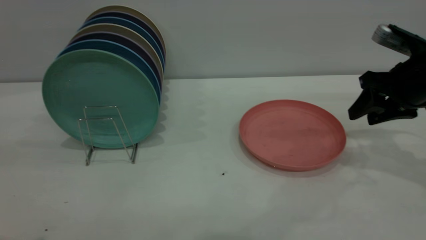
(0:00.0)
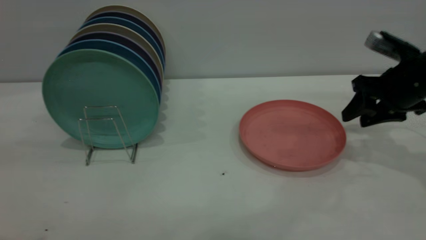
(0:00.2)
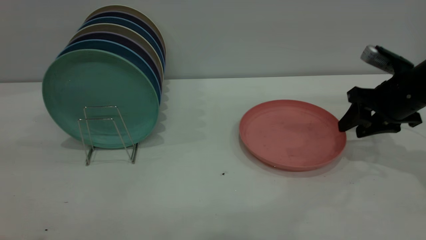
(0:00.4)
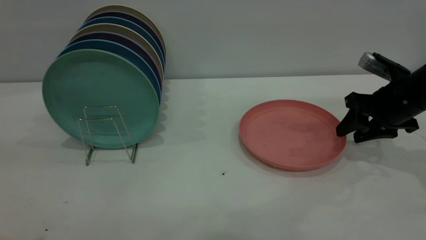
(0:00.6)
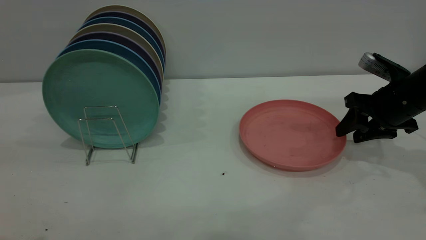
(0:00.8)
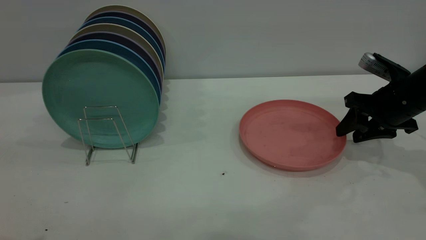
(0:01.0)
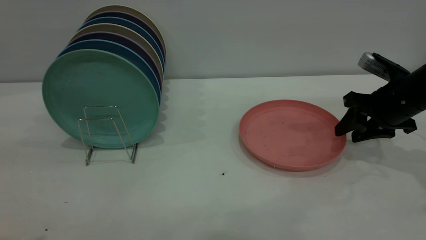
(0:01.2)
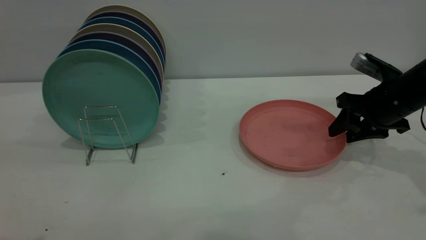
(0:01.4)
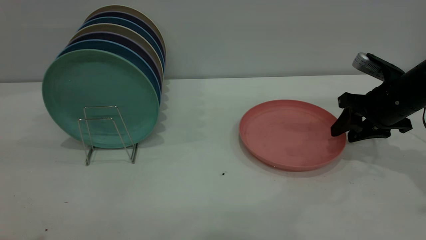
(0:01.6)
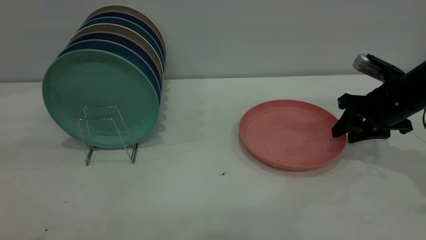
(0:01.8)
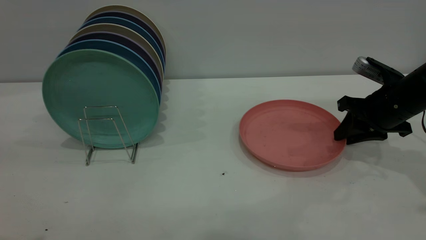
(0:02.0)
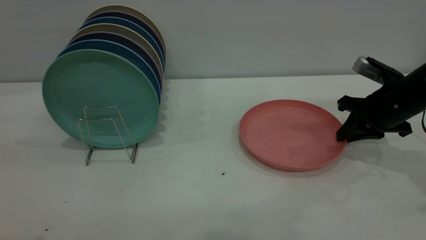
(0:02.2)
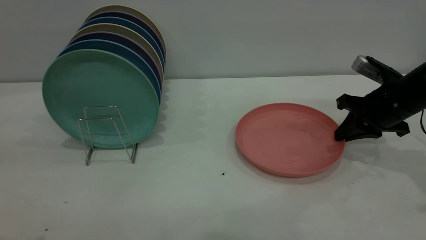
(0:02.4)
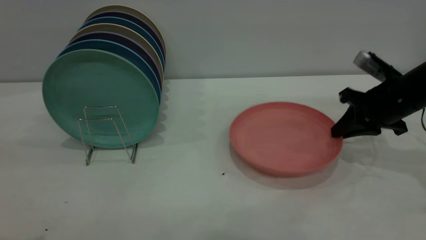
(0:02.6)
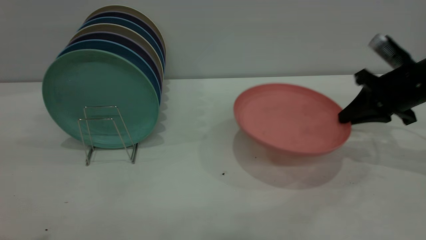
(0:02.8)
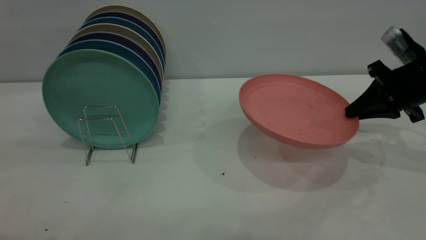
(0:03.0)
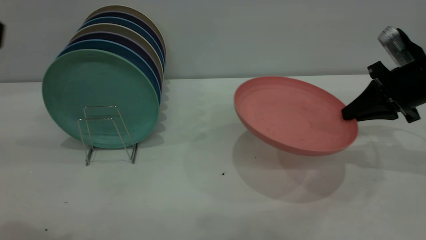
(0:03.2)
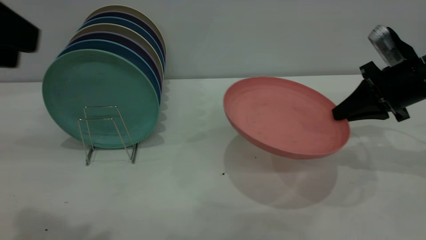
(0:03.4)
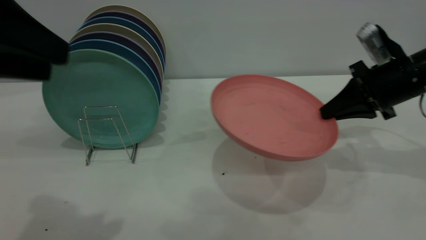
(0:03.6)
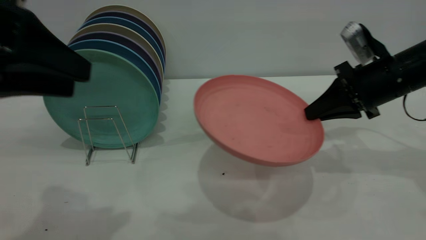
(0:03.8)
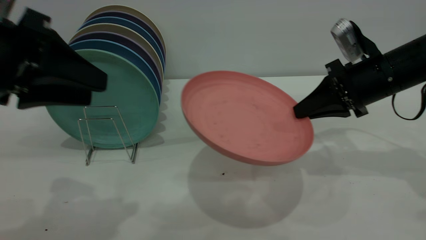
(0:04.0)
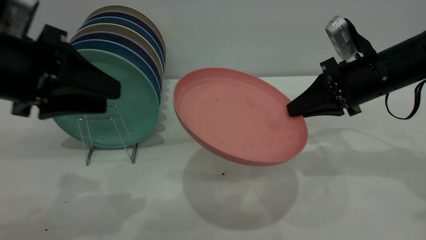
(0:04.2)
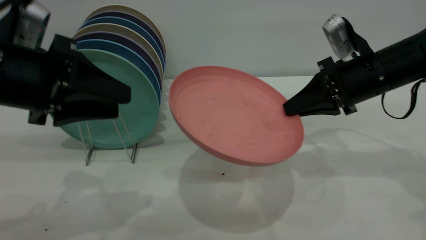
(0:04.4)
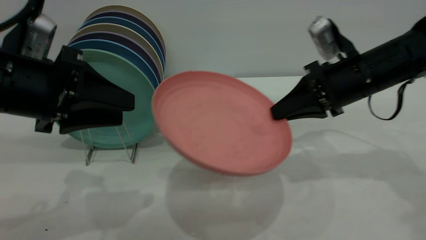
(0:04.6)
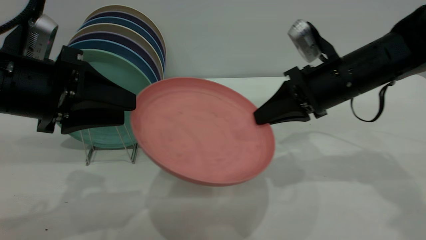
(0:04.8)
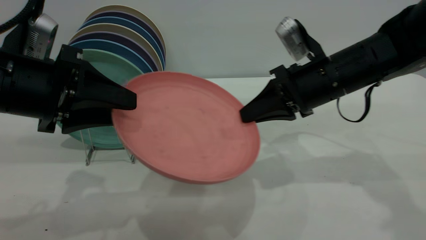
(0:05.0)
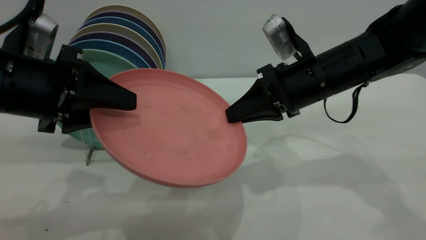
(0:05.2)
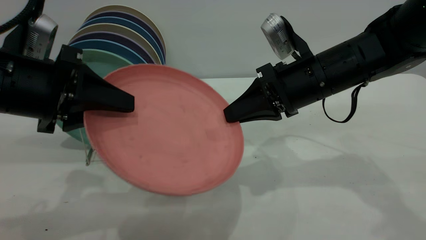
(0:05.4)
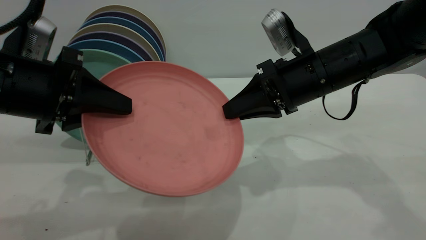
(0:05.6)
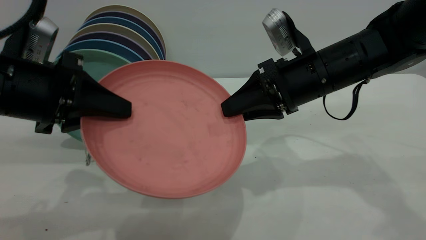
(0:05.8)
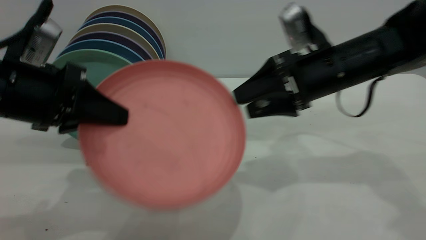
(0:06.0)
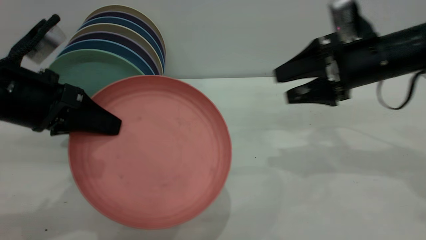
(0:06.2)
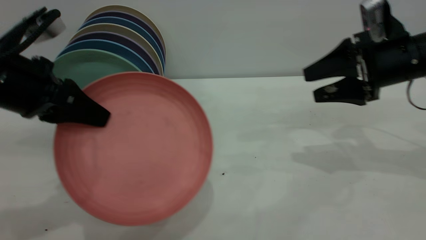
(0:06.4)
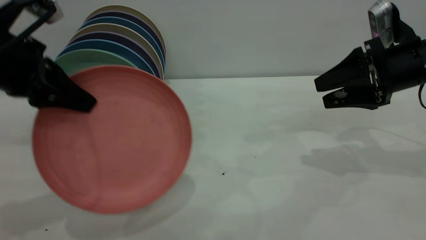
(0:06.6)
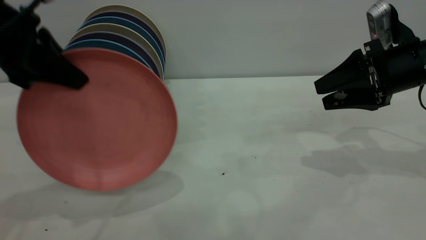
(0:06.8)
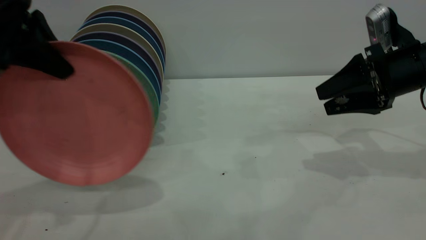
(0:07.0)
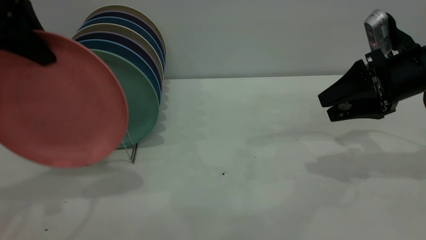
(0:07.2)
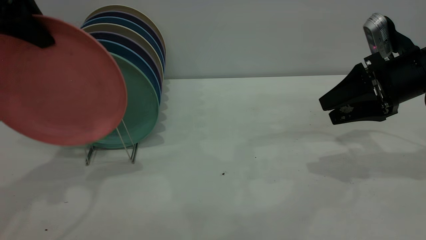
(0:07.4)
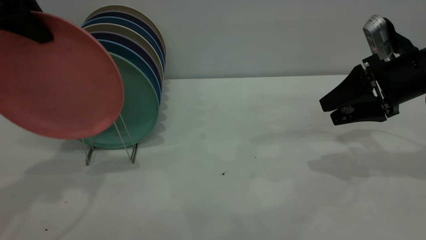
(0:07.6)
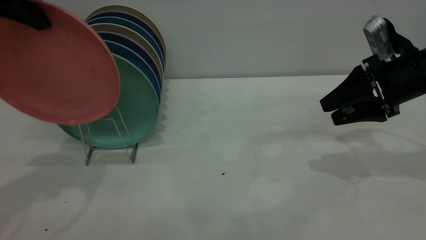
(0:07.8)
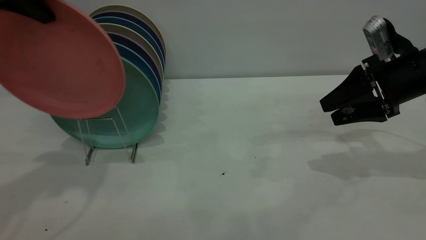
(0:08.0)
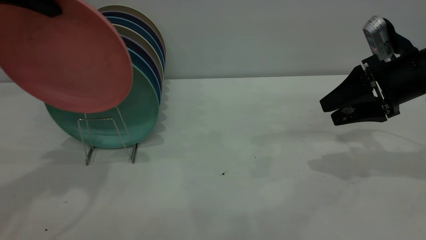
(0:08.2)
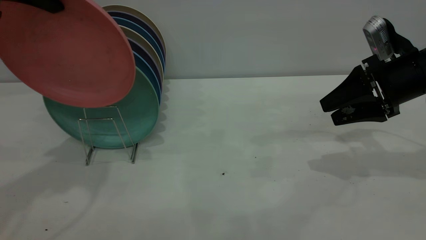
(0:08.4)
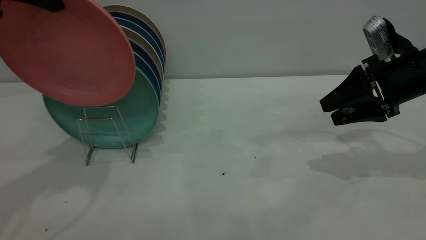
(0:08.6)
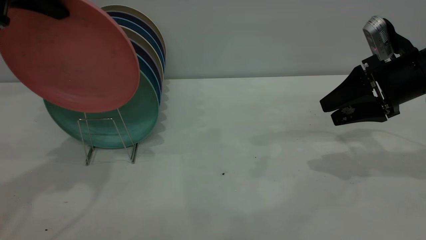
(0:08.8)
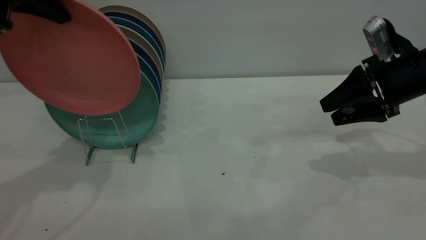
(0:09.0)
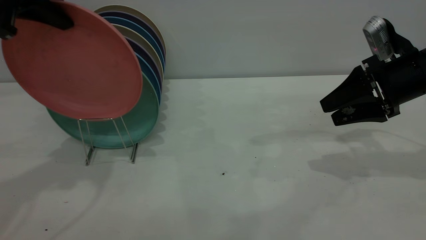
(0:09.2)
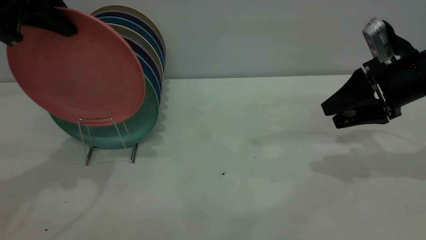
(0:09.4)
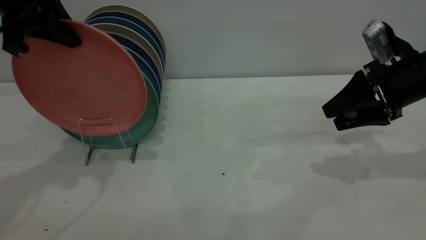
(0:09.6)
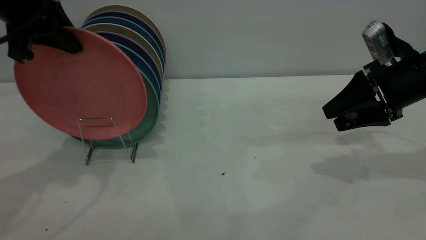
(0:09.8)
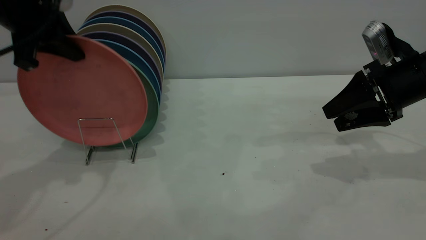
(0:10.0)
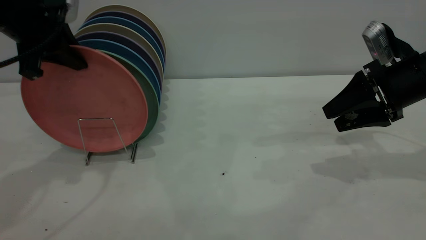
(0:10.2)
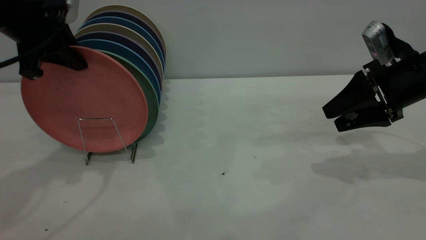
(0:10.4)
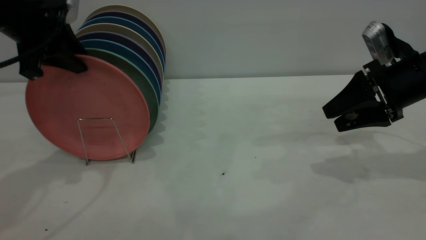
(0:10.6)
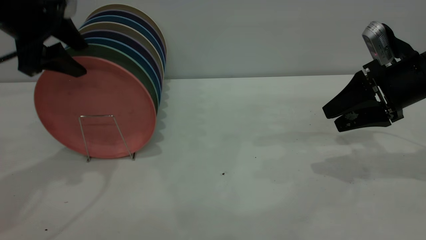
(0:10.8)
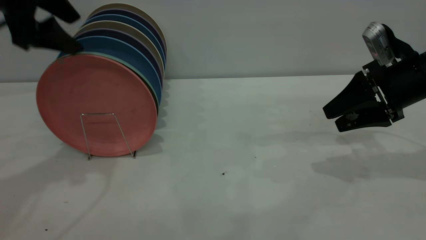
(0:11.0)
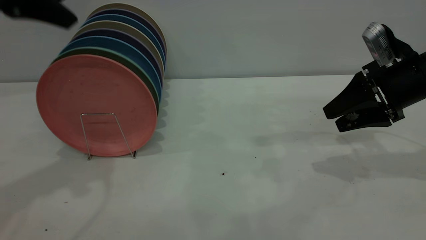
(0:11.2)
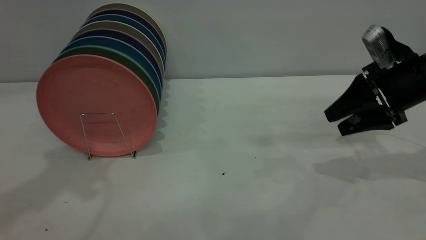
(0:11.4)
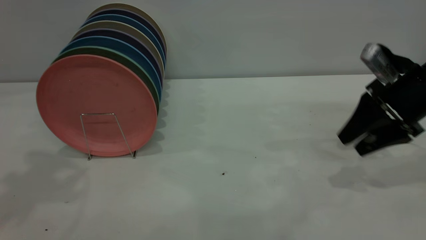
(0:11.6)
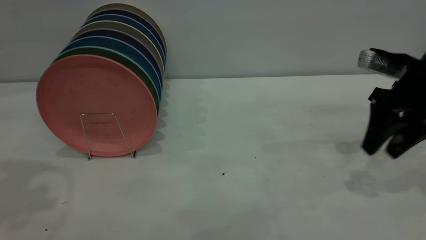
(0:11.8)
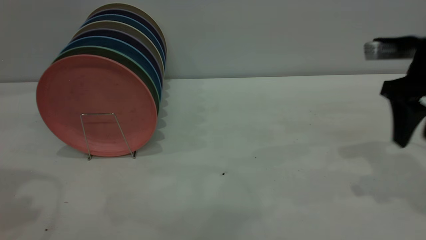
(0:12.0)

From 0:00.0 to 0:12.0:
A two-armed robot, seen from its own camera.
Task of the whole recording: the right gripper grasp the pink plate, the right gripper pass the pink plate to the left gripper, and the left gripper place the pink plate on the plate rack.
Step, from 0:00.0 to 0:03.2: Pick up the plate with the right gripper.
Step, from 0:03.4 to 0:07.8: Pass the plate from the right gripper to the left gripper.
Step, from 0:08.0 to 0:11.2: Place the plate on the shelf.
From 0:00.0 to 0:01.6: The right gripper shifts approximately 5 cm downward.
From 0:01.6 to 0:03.0: The right gripper closes its fingers.
From 0:03.0 to 0:04.4: The right gripper heads to the left, covering roughly 10 cm; the left gripper is displaced downward and forward by approximately 20 cm.
From 0:04.4 to 0:06.0: The left gripper closes its fingers. The right gripper opens.
From 0:06.0 to 0:07.6: The left gripper travels upward and forward by roughly 15 cm; the right gripper is displaced to the right by roughly 10 cm.
From 0:07.6 to 0:09.0: The grippers stay close to where they were, moving slightly.
From 0:09.0 to 0:10.4: The left gripper goes approximately 5 cm downward.
From 0:10.4 to 0:12.0: The right gripper is displaced upward by about 5 cm. Meanwhile the left gripper moves backward and upward, about 15 cm, and opens up.

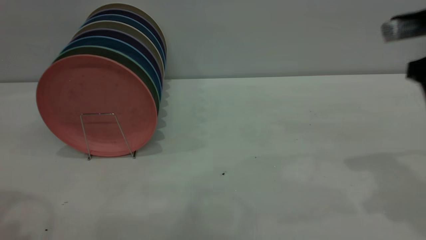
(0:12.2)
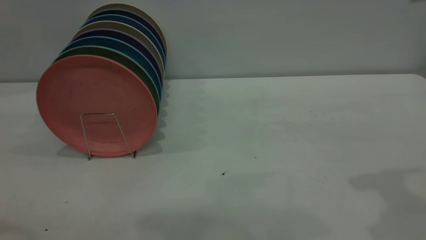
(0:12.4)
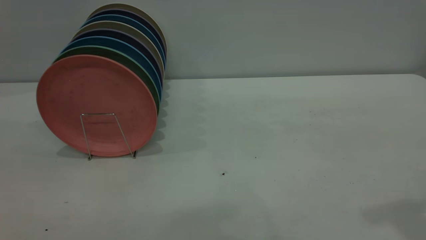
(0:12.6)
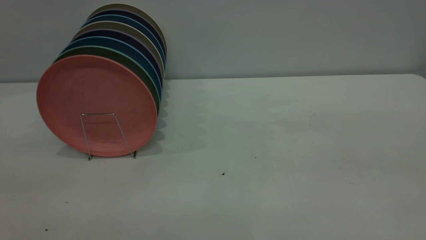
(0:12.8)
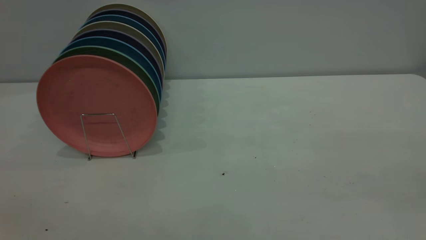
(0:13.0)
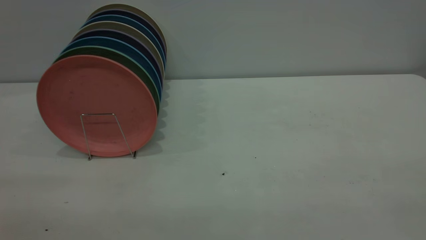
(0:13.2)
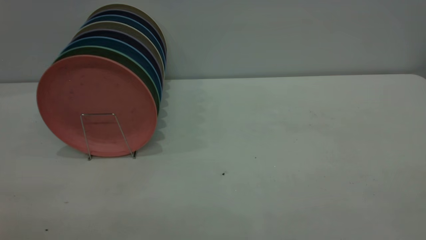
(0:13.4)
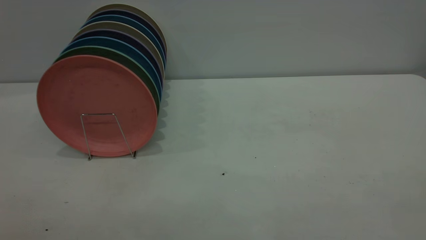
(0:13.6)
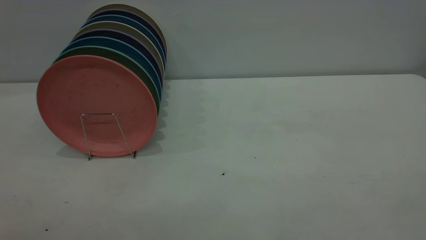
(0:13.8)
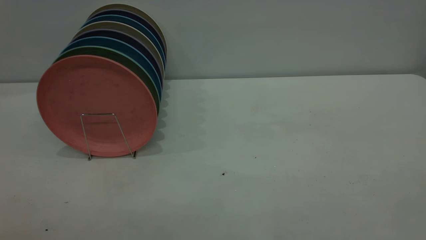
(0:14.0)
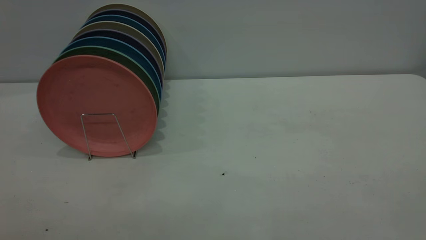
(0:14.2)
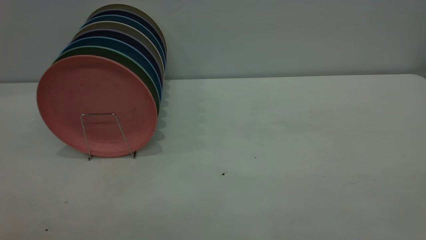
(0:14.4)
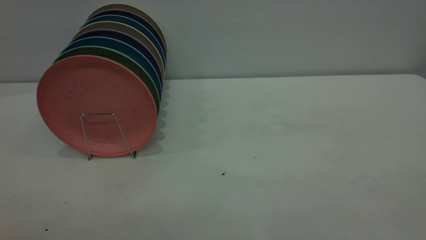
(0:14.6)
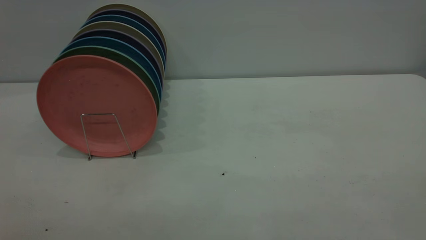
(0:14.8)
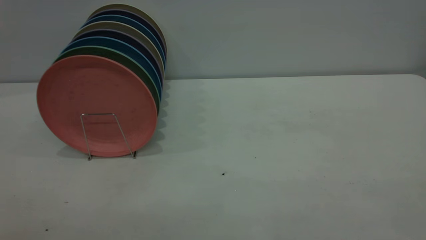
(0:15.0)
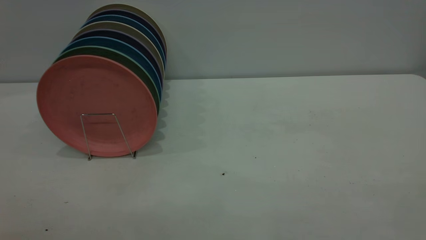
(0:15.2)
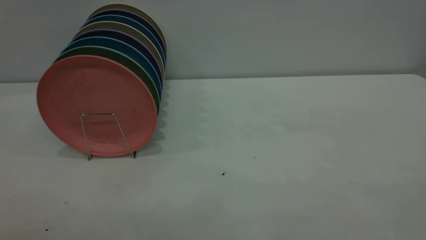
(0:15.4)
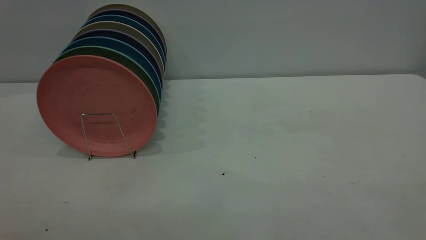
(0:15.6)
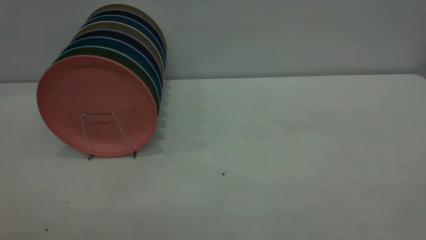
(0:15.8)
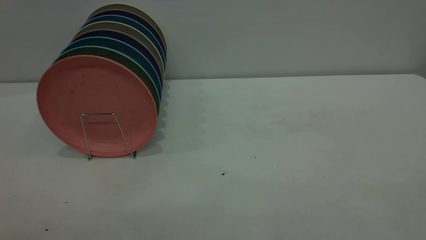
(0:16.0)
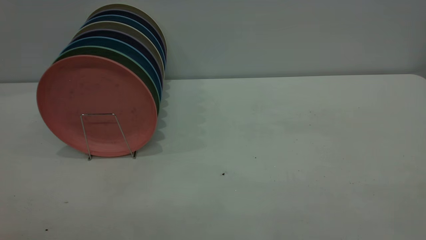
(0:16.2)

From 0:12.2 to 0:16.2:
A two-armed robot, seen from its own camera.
Task of the whole recording: the right gripper grasp the pink plate, the right gripper pass the pink plate to the left gripper, and the left gripper place the pink plate on the plate rack.
From 0:12.2 to 0:13.6: The right gripper shifts some 30 cm backward.
